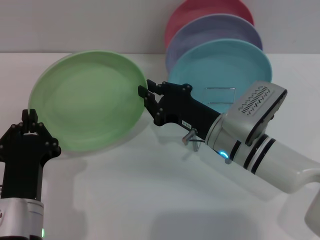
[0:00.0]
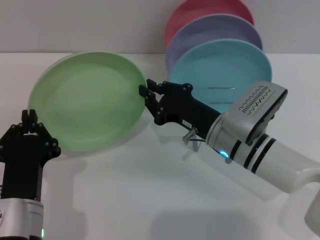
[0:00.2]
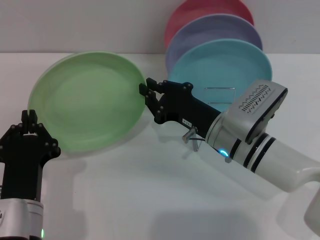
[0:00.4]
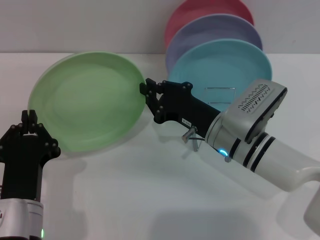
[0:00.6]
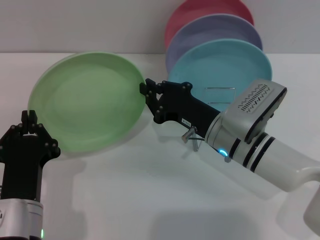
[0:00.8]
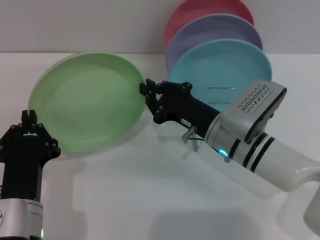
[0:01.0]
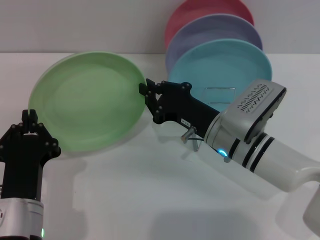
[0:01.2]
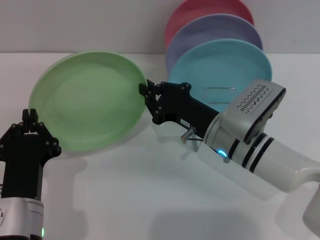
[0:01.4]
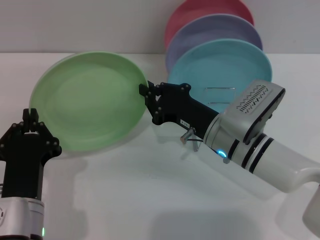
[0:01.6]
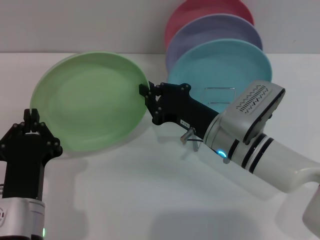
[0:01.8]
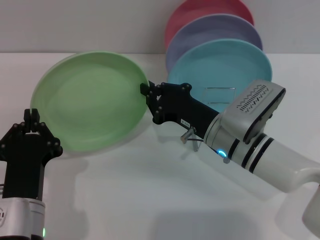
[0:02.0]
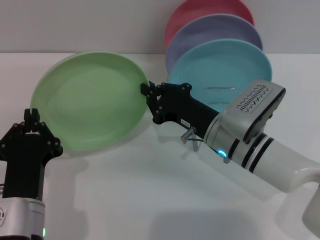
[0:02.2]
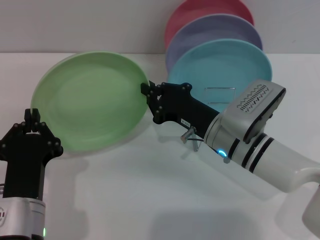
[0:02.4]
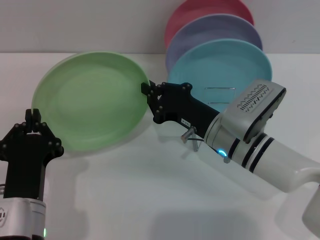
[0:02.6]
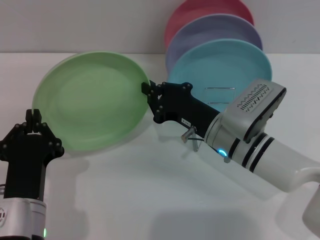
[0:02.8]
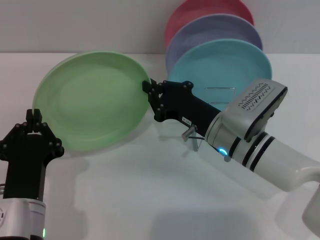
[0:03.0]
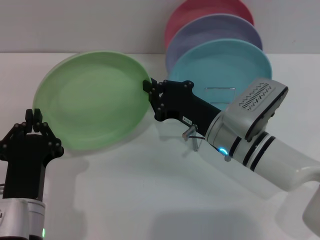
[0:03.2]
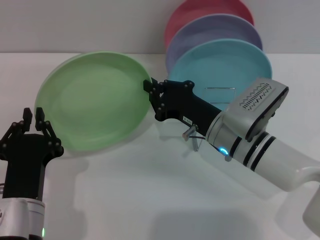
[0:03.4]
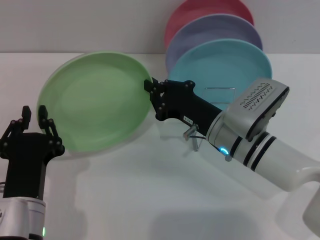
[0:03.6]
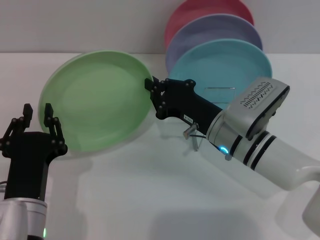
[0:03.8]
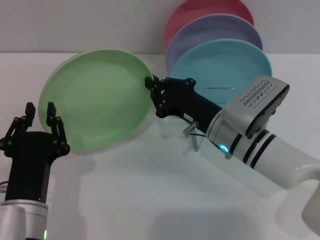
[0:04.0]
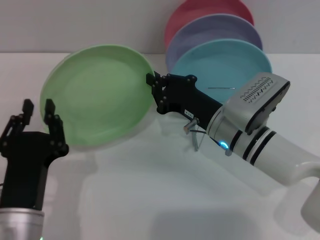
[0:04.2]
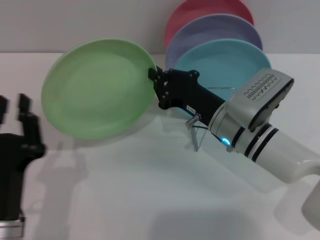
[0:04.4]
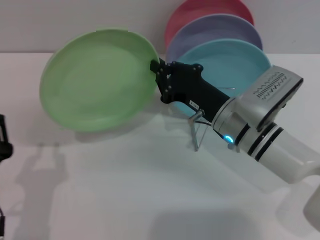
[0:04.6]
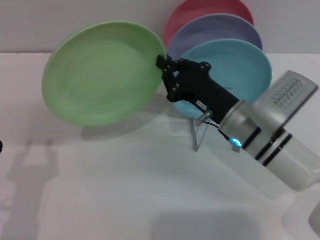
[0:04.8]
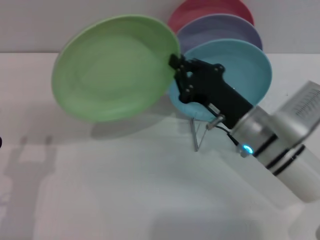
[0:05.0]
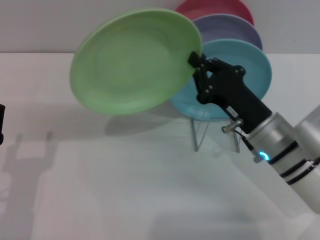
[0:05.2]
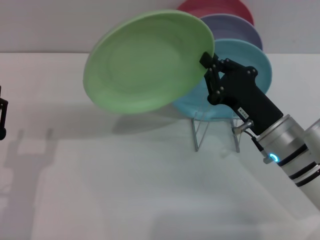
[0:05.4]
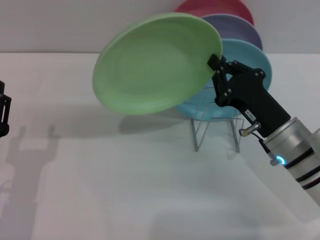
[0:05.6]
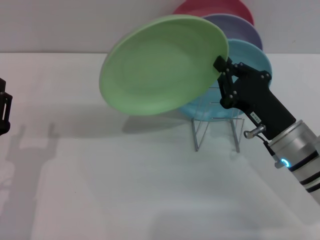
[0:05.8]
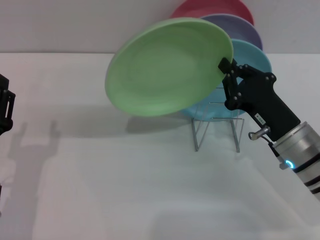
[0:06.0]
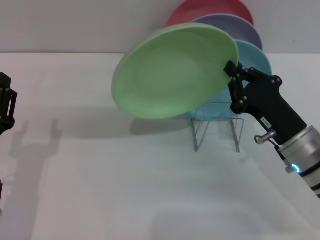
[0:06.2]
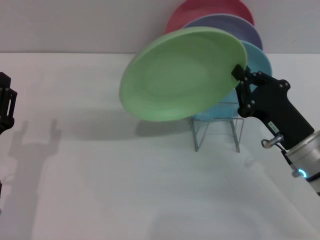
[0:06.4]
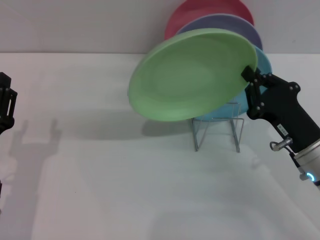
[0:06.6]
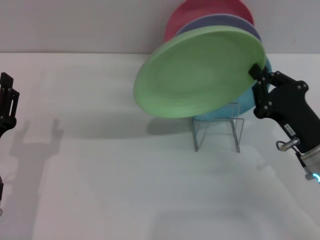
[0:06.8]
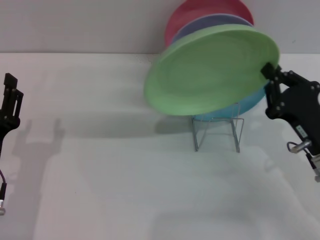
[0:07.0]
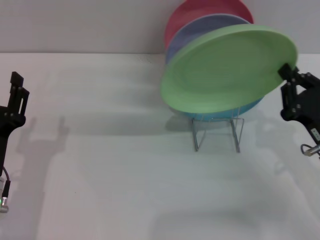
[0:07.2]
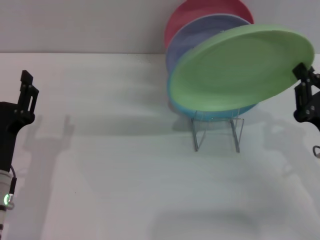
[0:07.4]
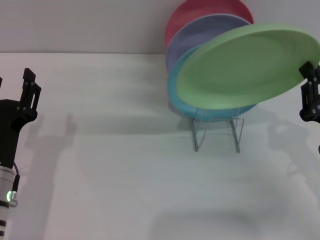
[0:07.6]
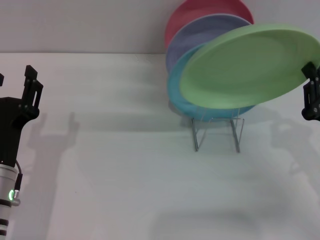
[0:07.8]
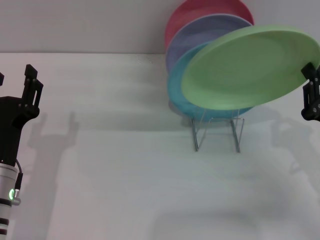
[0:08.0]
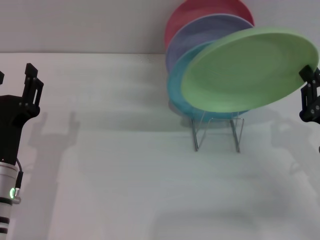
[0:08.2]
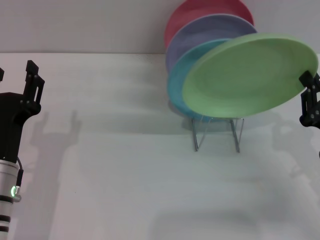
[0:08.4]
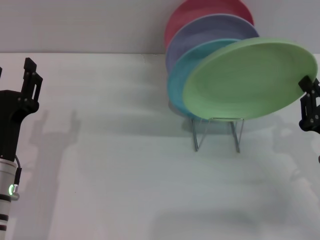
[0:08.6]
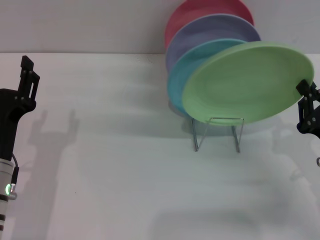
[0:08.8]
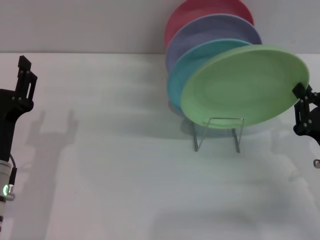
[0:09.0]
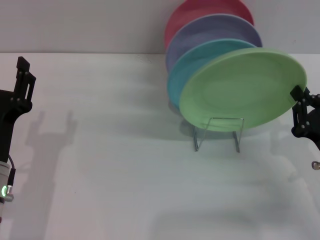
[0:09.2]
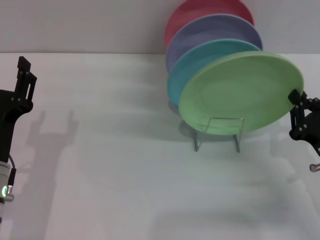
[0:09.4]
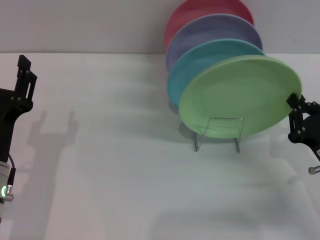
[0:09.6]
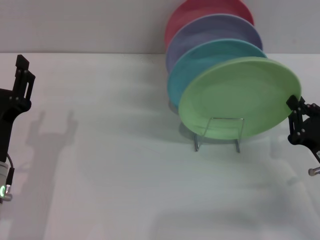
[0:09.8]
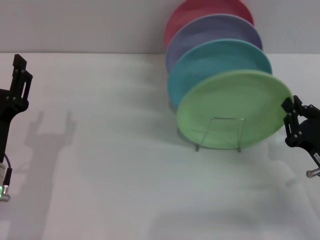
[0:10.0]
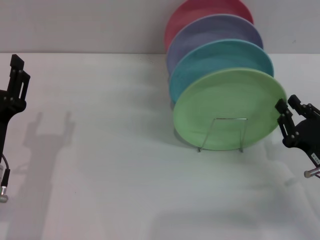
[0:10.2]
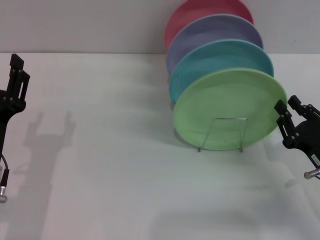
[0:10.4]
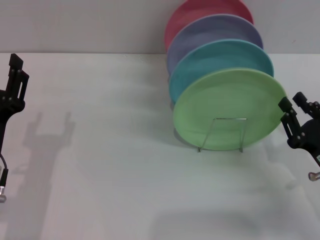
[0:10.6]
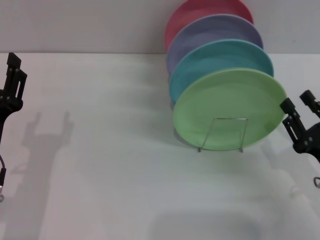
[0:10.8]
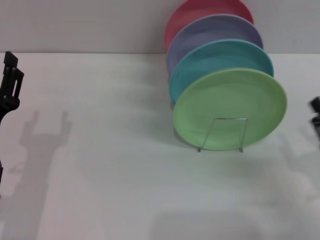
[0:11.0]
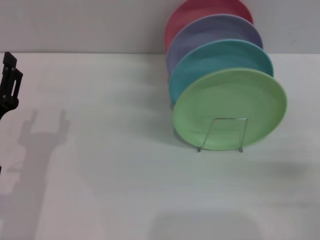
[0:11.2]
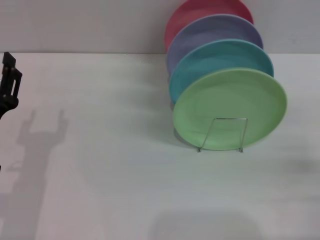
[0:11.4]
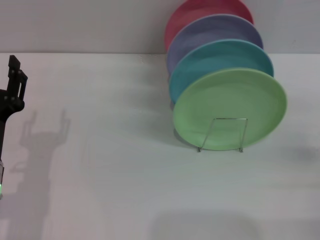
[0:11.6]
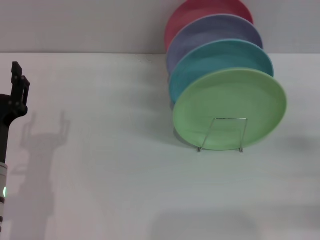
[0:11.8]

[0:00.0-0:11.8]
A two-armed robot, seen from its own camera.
Task of the whole recording: Grip the plate with one hand, pass it to the other, then set it on the shelf.
Step, 0:00.0 to 0:04.2: Pass the plate from the left gripper to the right gripper.
Step, 0:04.4 to 0:10.6: Place the plate on the shelf with the right gripper.
0:00.0 to 0:03.0: The two grippers keep their place.
0:03.0 to 0:04.4: The left gripper opens.
0:04.4 to 0:06.0: The left gripper moves to the left and forward, approximately 10 cm, and opens up; the right gripper shifts approximately 10 cm to the right and backward.
0:06.0 to 0:07.4: The right gripper shifts about 5 cm to the right.
0:07.4 to 0:10.4: The grippers make only small movements.
0:10.4 to 0:11.8: The right gripper shifts some 10 cm to the right, and opens its fingers.

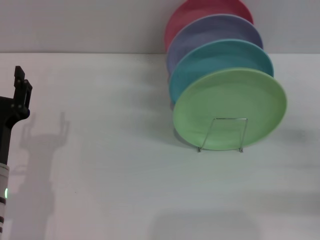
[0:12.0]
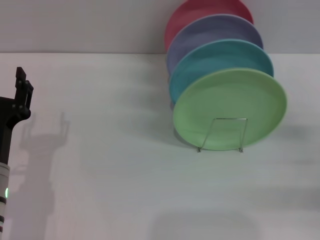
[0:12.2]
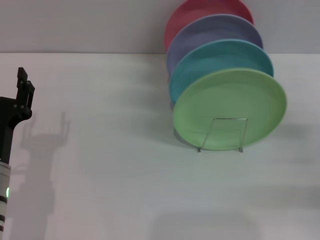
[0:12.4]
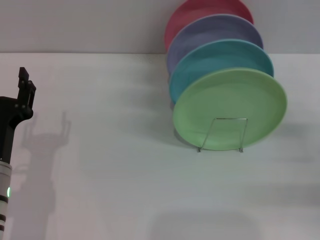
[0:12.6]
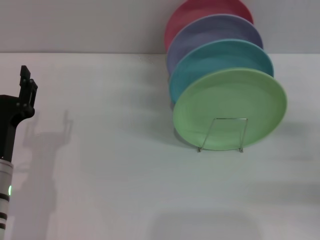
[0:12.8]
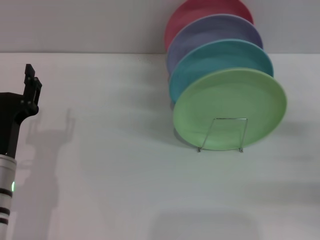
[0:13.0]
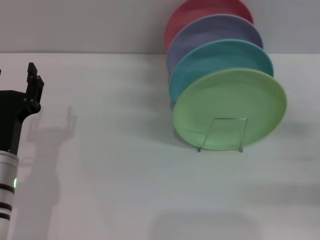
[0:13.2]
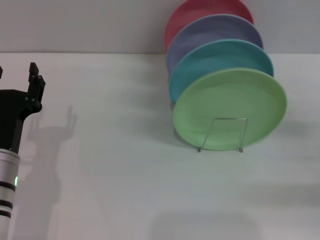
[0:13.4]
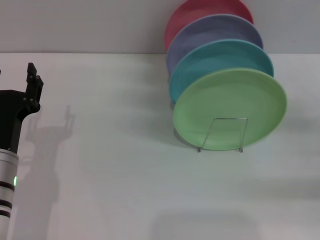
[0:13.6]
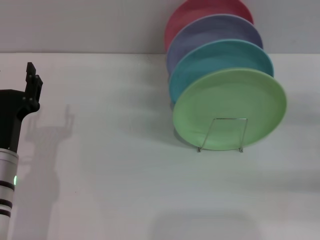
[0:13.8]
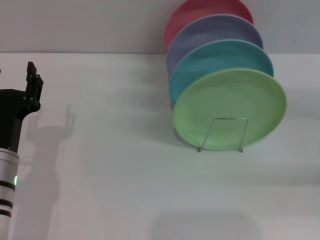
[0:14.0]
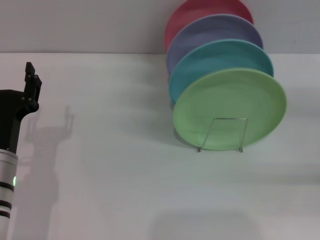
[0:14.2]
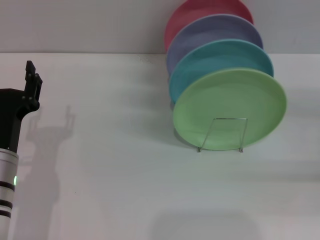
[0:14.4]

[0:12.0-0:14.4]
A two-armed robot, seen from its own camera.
Task of the whole recording: Grip the plate with one hand, pass it to the other, then set it on the shelf.
0:12.0 to 0:13.2: There are only small adjustments of the grippers.
